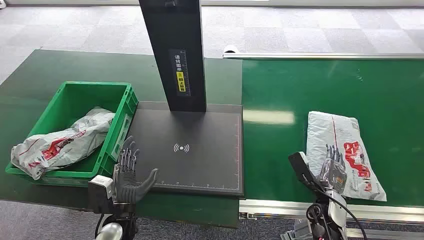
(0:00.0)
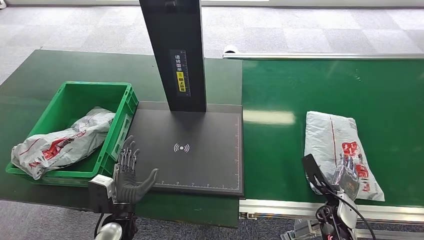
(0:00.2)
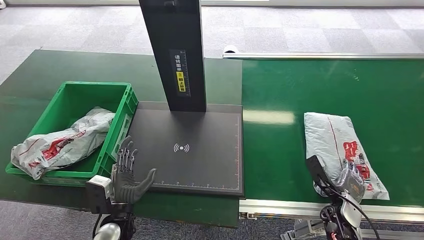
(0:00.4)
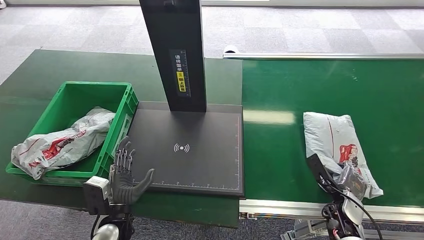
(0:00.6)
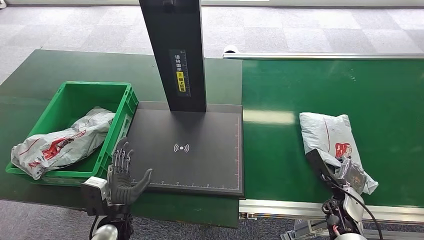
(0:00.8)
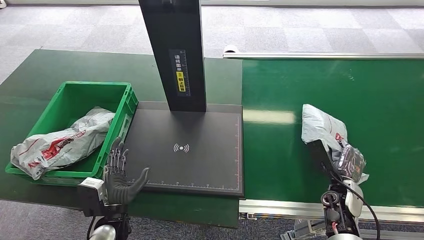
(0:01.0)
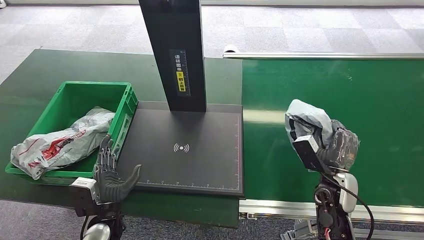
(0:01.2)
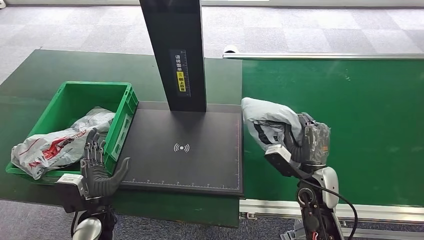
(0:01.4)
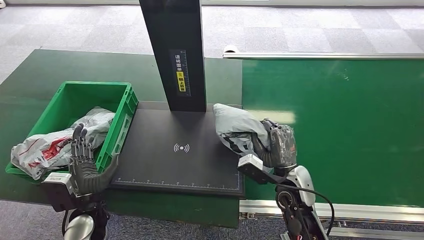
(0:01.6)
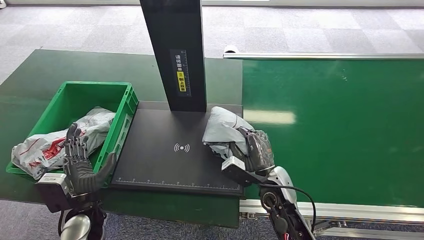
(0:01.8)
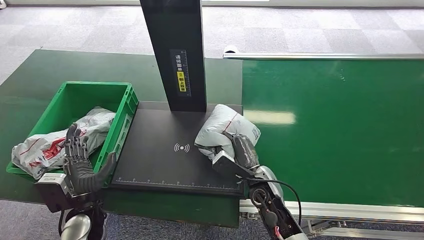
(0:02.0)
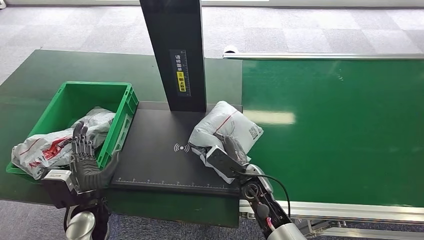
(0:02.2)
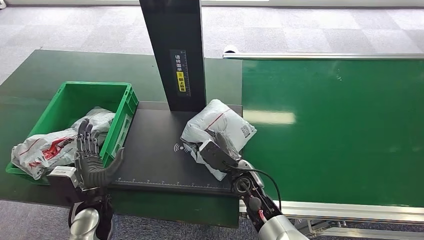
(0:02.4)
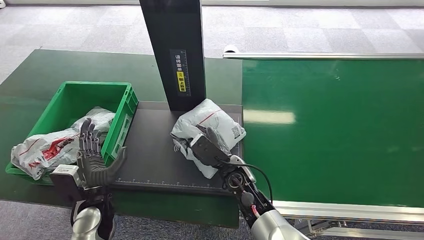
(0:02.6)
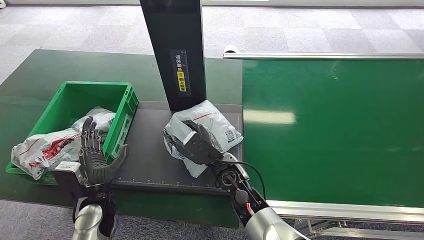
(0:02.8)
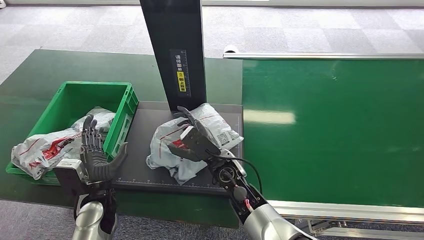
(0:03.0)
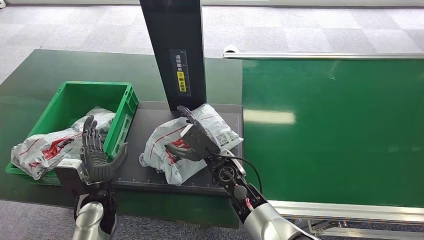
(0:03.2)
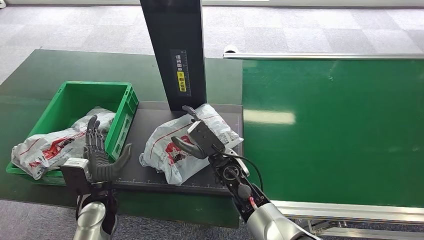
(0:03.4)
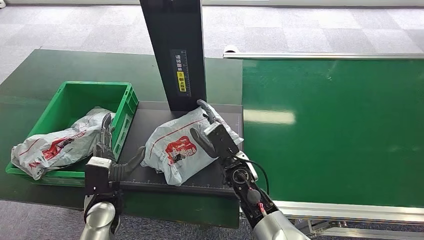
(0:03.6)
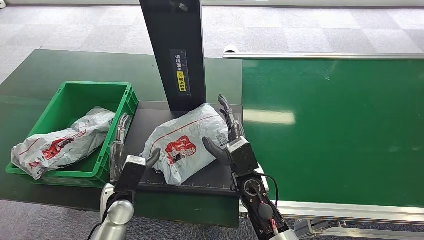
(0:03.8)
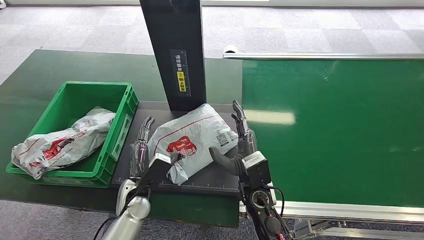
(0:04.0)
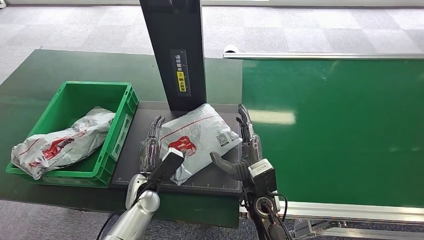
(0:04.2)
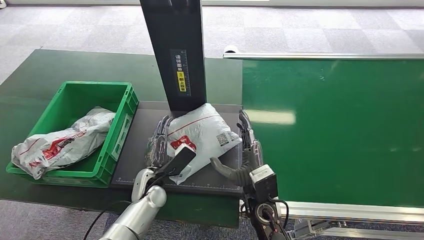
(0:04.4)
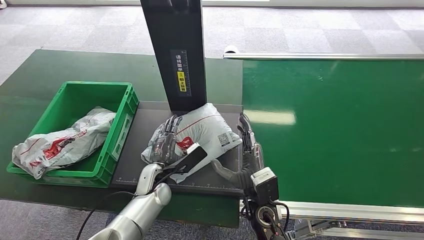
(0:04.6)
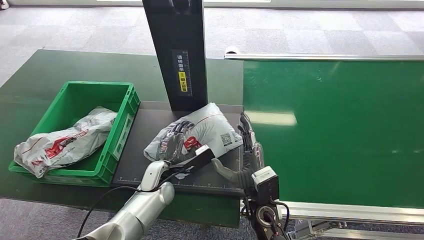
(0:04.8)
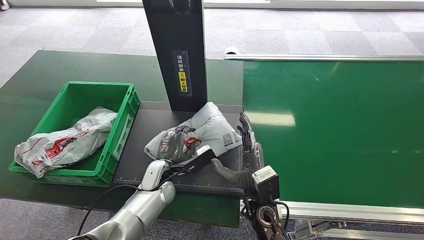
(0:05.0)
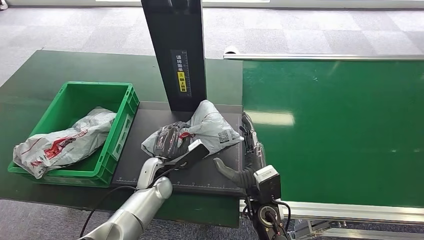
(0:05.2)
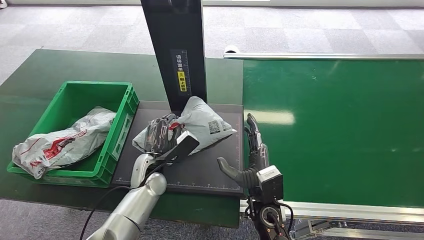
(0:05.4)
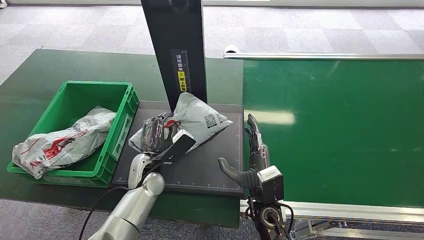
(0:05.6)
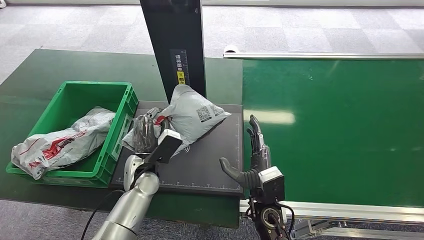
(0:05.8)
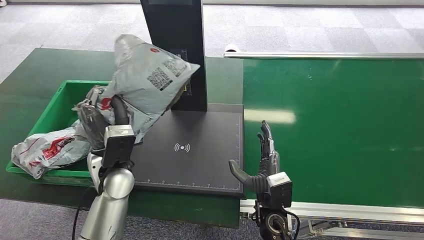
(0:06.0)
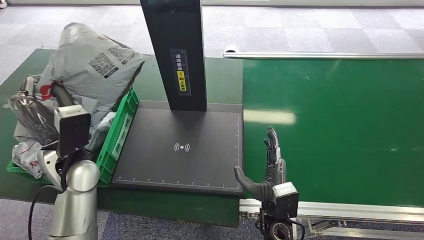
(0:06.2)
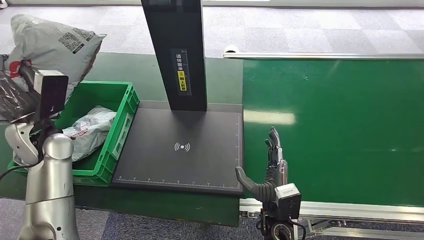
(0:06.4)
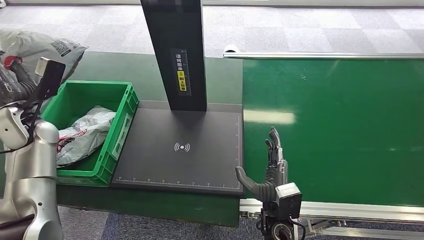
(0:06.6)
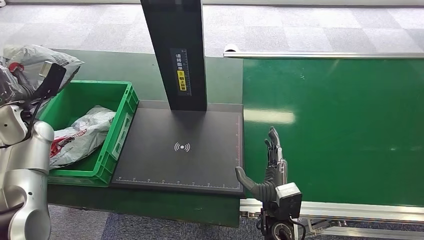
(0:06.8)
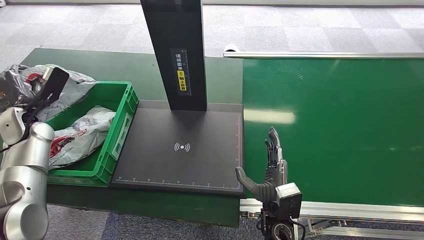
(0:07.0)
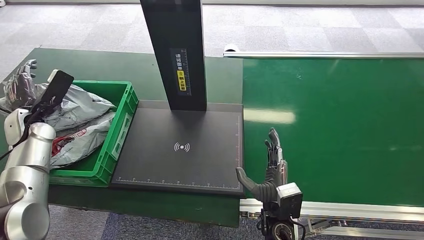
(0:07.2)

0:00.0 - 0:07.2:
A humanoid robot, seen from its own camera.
Step, 0:00.0 - 0:01.0: Pick up the package from the conveyor belt.
Step, 0:01.4 - 0:03.0: Place the package onto the inbound machine.
Step, 0:03.4 - 0:05.8: Pick up the package from the inbound machine.
Step, 0:06.0 - 0:07.2: Place the package into the parcel locker.
0:01.4 - 0:02.8: The right hand shifts about 20 cm to the left.
0:02.8 - 0:04.4: The right hand shifts some 10 cm backward and to the right. Meanwhile the left hand moves to the right and forward, approximately 10 cm.
0:04.4 - 0:05.8: The left hand is displaced upward by roughly 5 cm.
